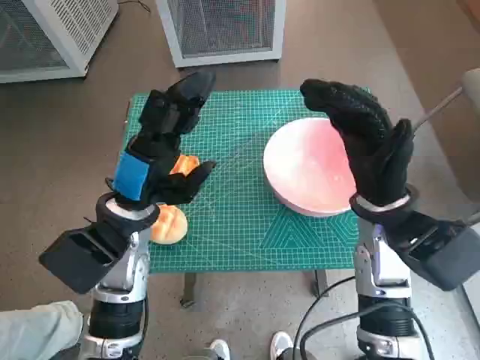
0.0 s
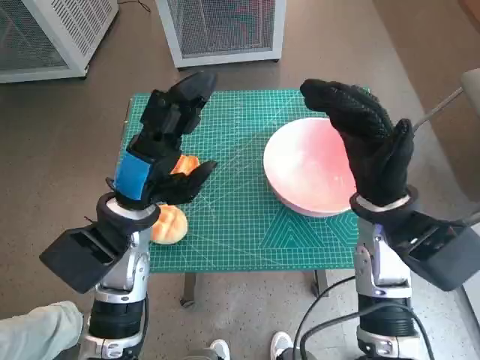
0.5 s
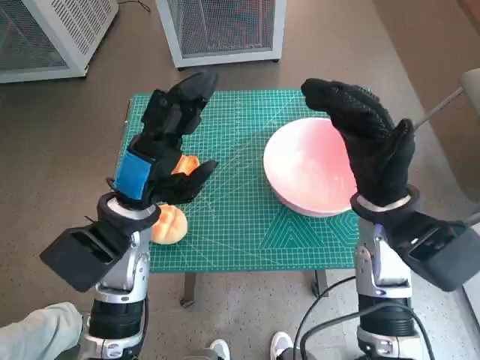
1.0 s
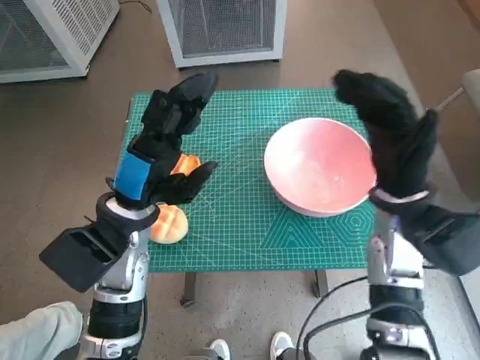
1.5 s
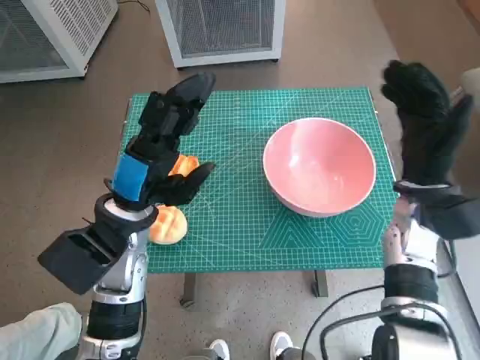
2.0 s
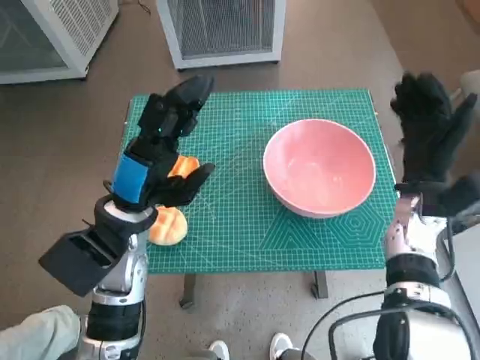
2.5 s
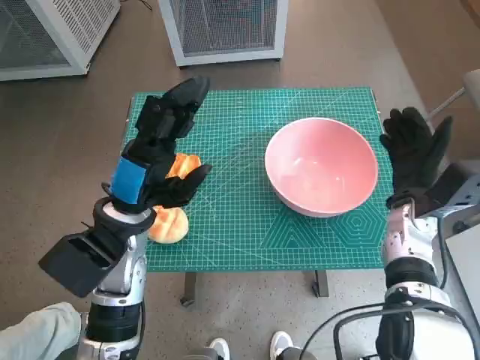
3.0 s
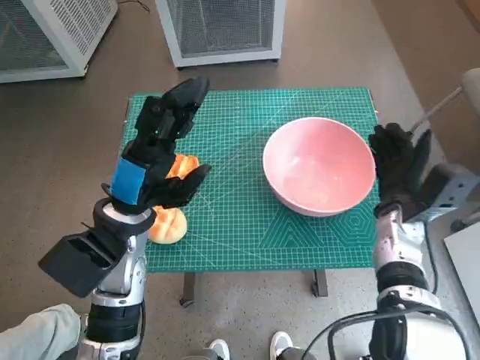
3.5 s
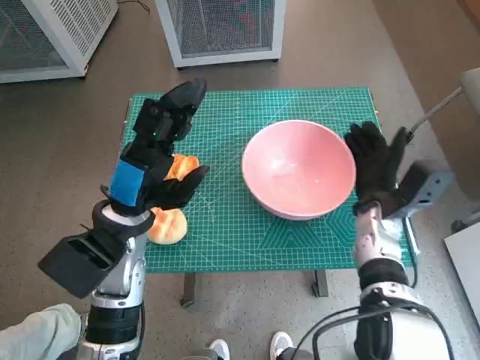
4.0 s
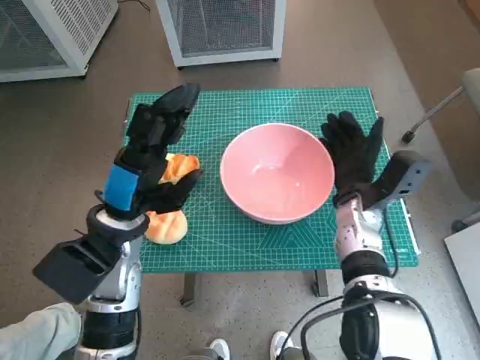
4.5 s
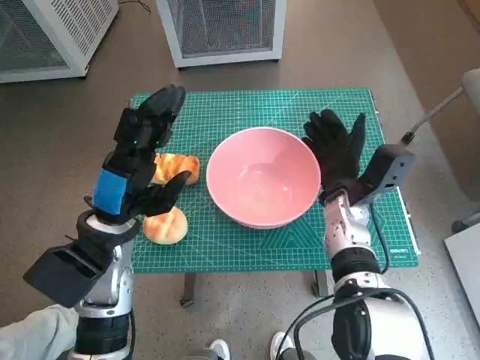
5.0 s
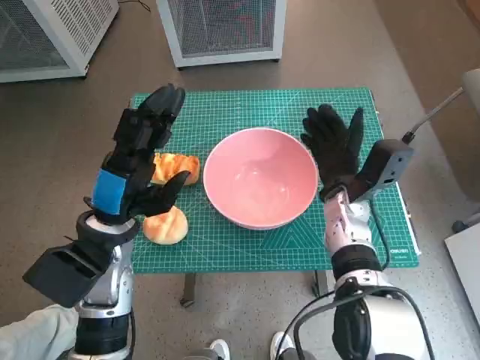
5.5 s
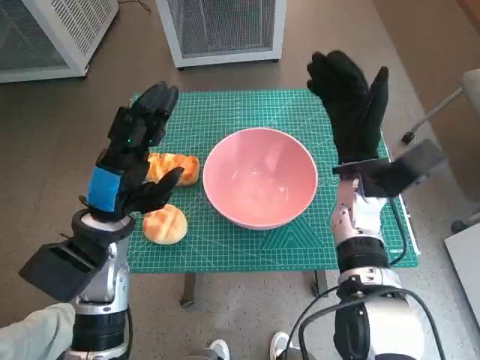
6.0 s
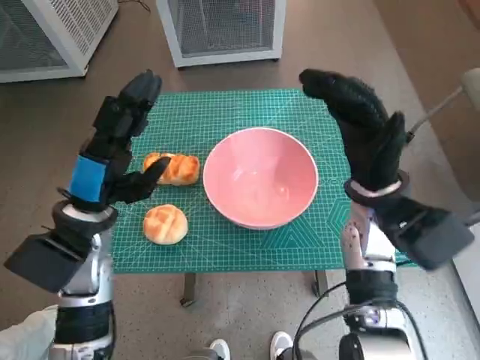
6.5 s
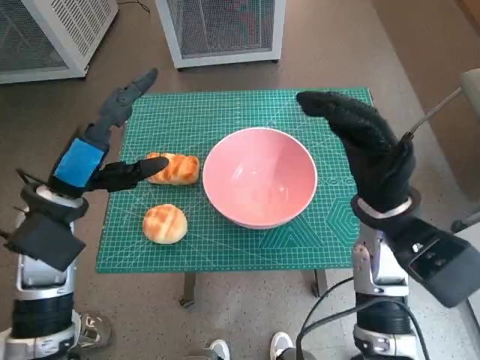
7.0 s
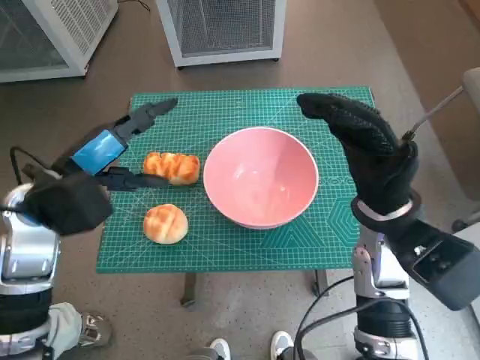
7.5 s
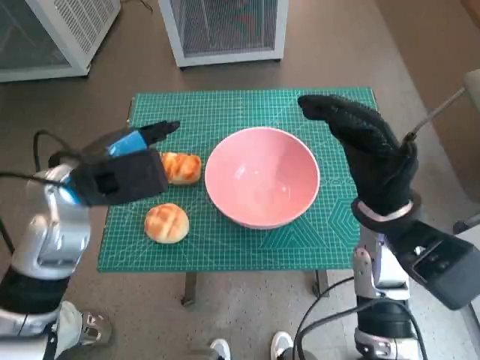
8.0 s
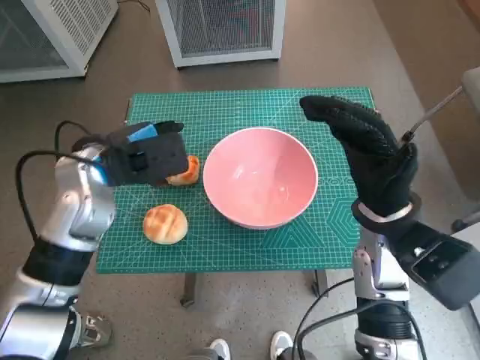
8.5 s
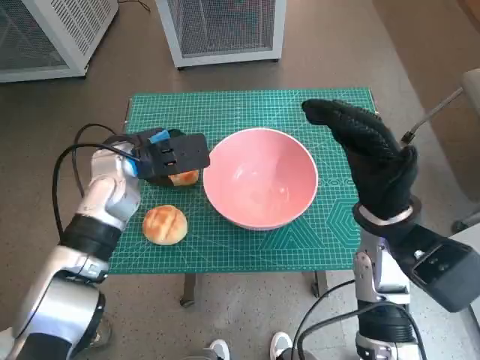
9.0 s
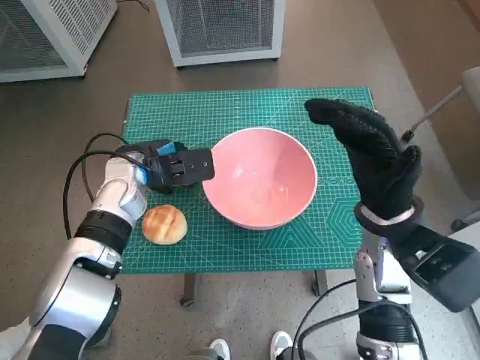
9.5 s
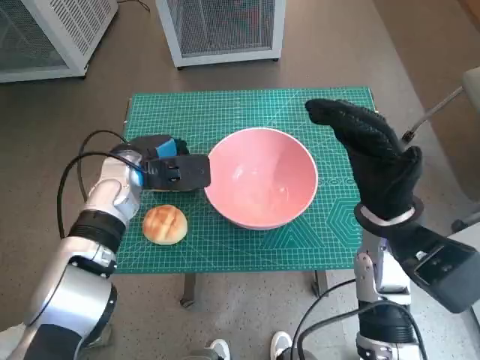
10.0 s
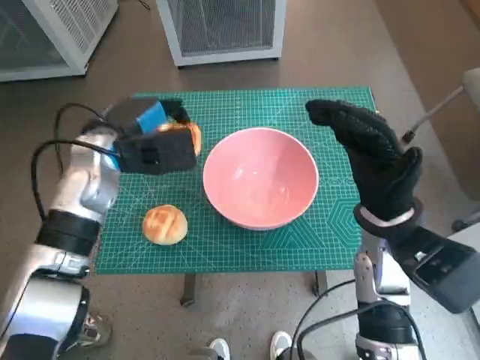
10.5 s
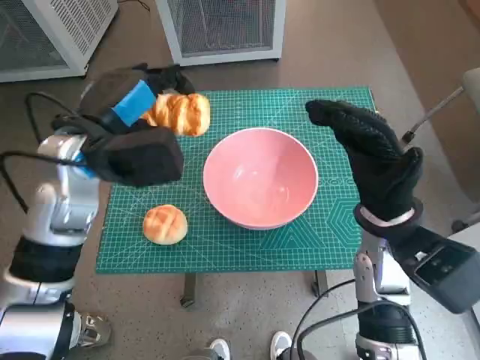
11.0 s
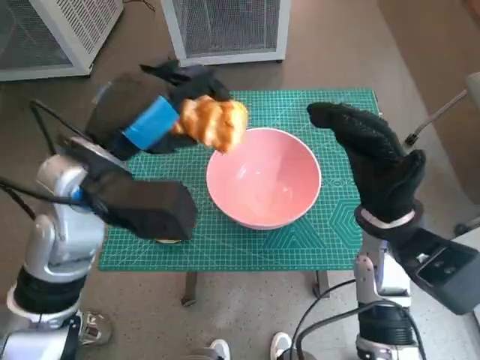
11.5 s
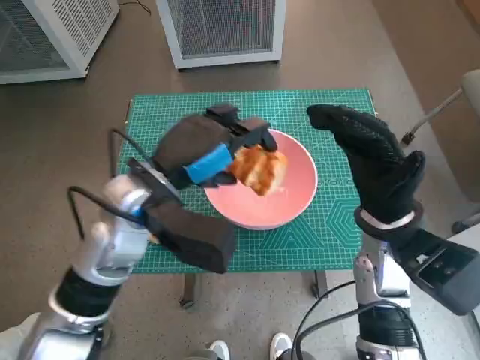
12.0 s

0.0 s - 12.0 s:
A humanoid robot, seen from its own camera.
Task of the whole recording: Push the bowl into the center of the table and put the bread into the bowl.
Step, 0.0 s - 5.5 s: Move the pink bowl to the center of table with right hand.
Step, 6.0 s - 9.5 s: Grasp the long bread with left hand.
2.0 s - 4.0 s: The right hand is displaced downward by some 10 cm.
4.0 s - 6.0 s: The right hand heads upward, covering roughly 5 cm.
6.0 s - 8.0 s: The left hand heads upward, covering about 5 cm. The right hand is displaced backward by some 5 cm.
8.0 s - 10.0 s: The left hand shifts roughly 10 cm downward and forward.
10.0 s - 12.0 s: The left hand travels backward, upward and to the right by approximately 15 cm.

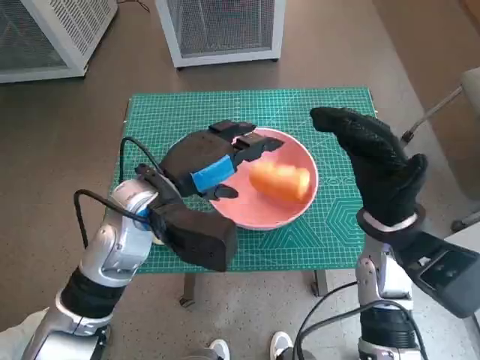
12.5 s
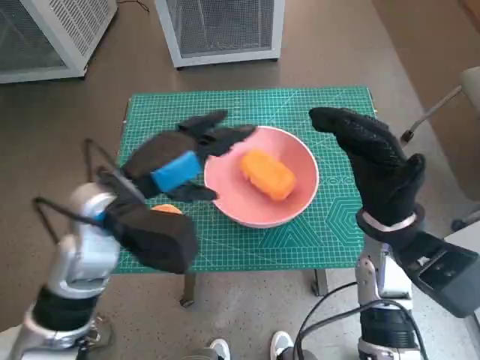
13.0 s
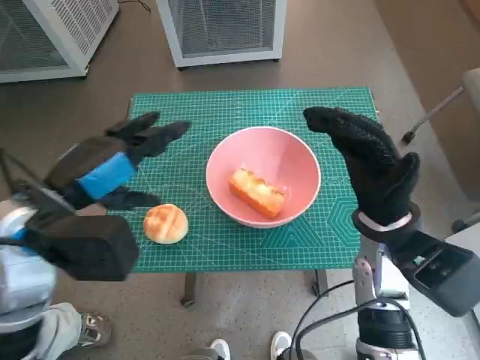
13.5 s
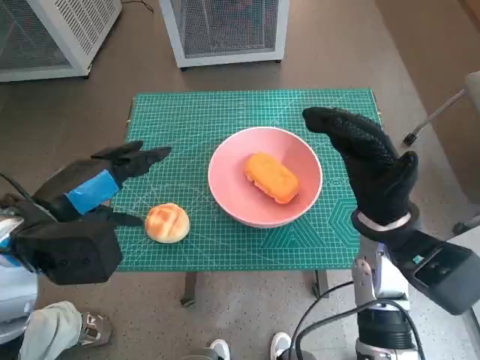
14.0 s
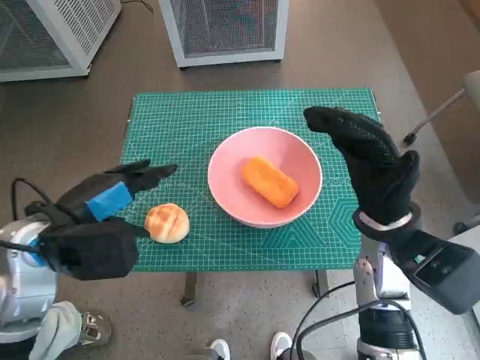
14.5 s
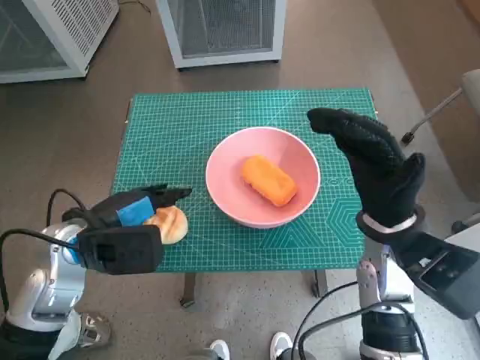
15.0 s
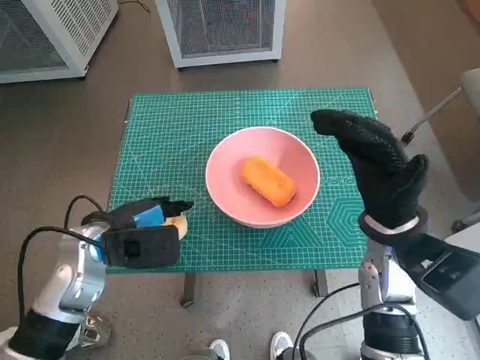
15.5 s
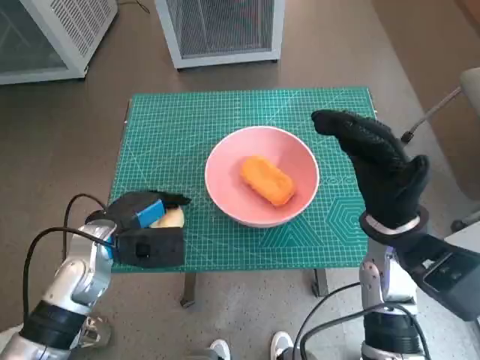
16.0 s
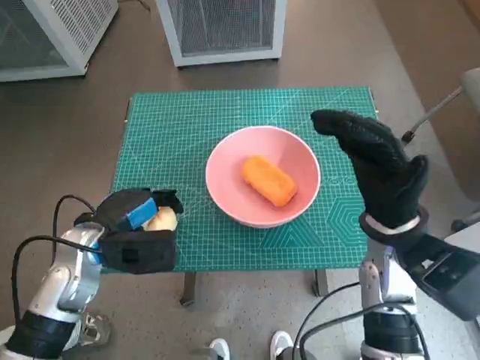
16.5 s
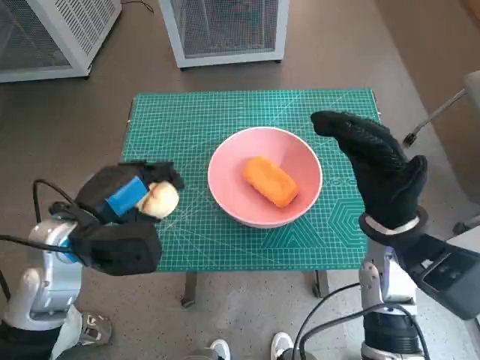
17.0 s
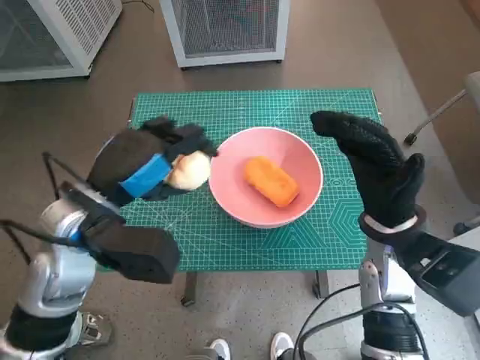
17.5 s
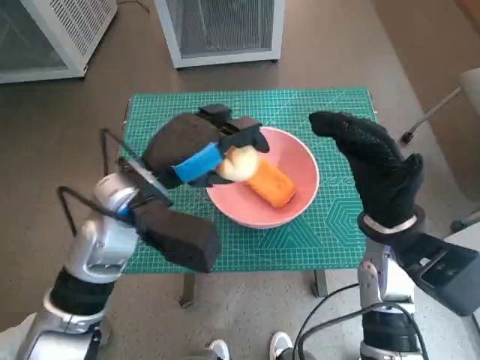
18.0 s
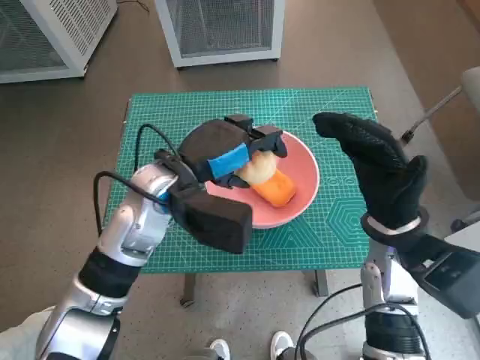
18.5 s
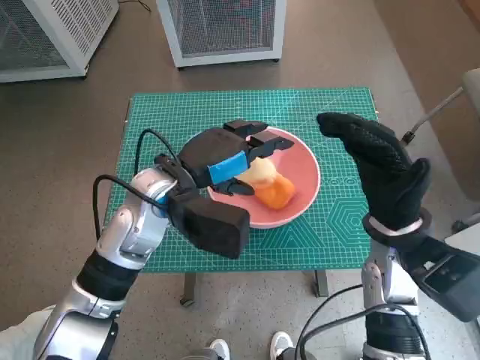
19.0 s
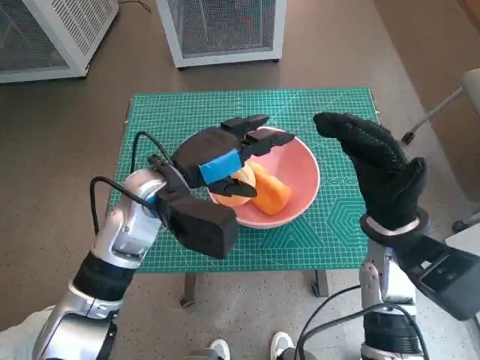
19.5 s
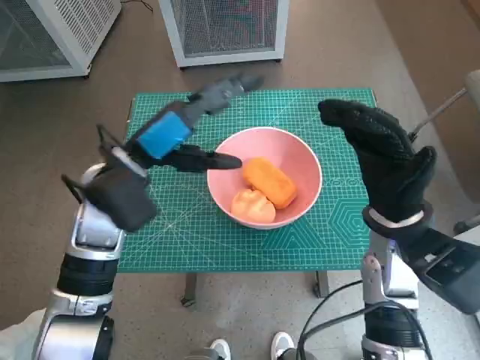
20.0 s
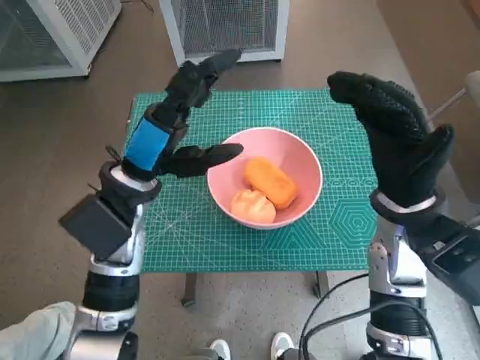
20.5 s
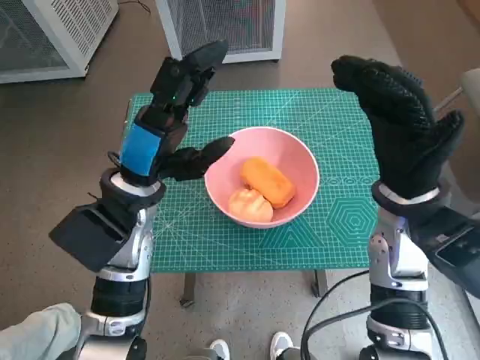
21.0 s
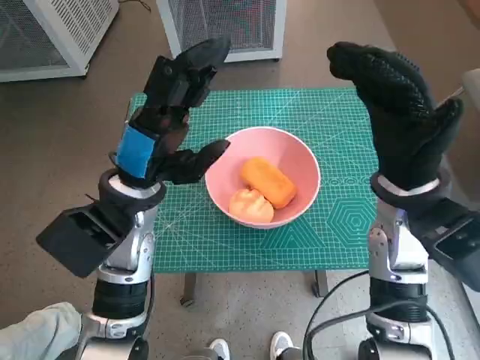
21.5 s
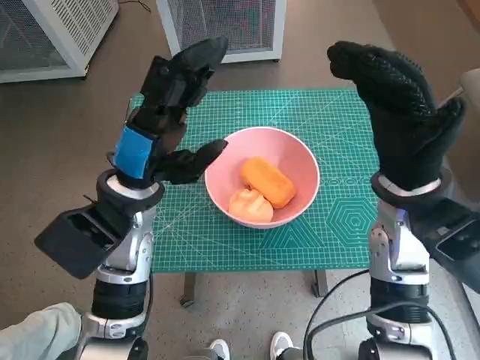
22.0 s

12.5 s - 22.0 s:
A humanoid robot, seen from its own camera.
Task of the whole recording: Push the bowl into the center of the table and put the bread into the bowl.
Step, 12.5 s - 15.5 s: Grasp the round bread with left hand.
Step, 16.0 s - 18.5 s: Place the round bread in pink bowl with left hand.
12.5 s - 14.5 s: The left hand shifts about 10 cm to the left and backward.
14.5 s - 16.5 s: The left hand shifts roughly 10 cm downward.
16.5 s - 18.0 s: The left hand moves upward and to the right, roughly 15 cm.
20.0 s - 22.0 s: The right hand shifts by some 5 cm.

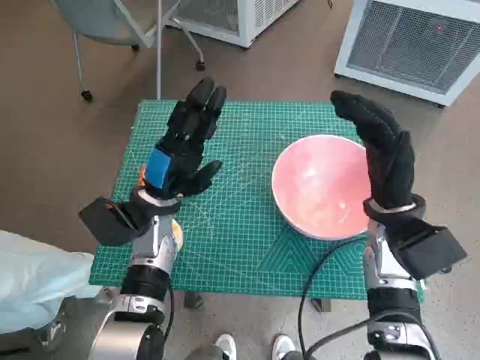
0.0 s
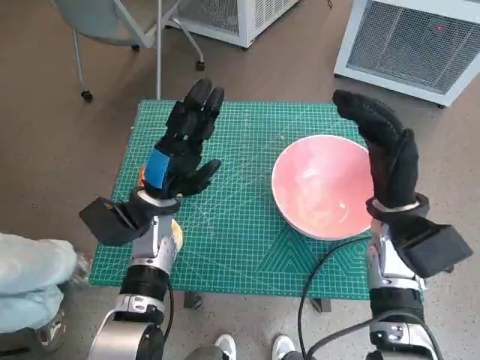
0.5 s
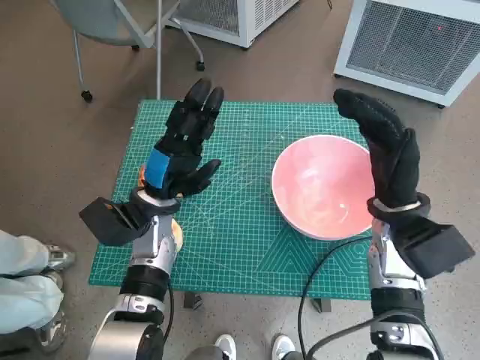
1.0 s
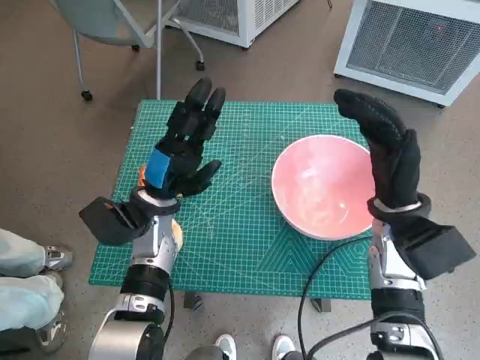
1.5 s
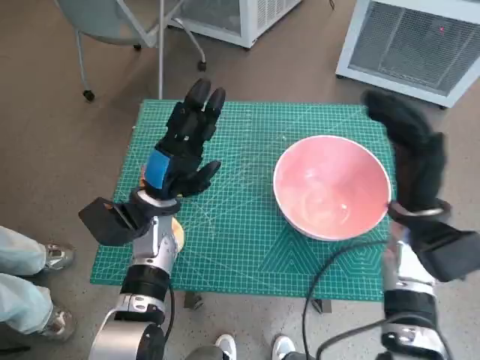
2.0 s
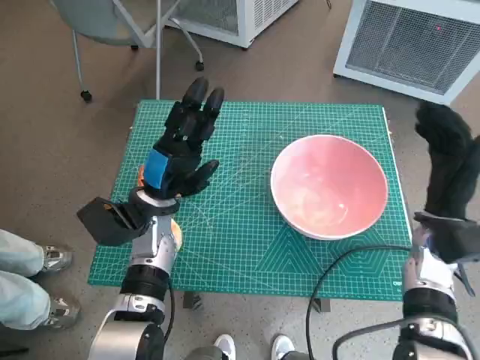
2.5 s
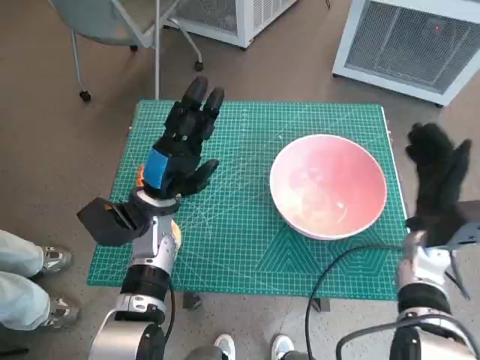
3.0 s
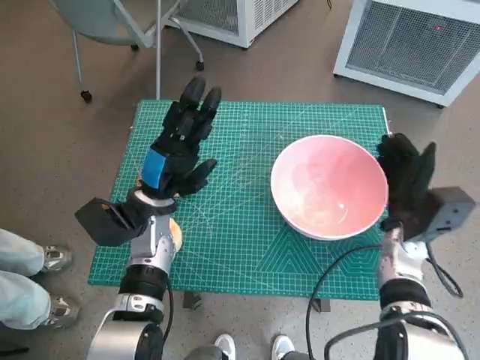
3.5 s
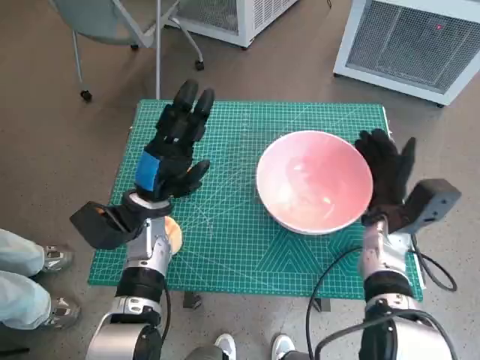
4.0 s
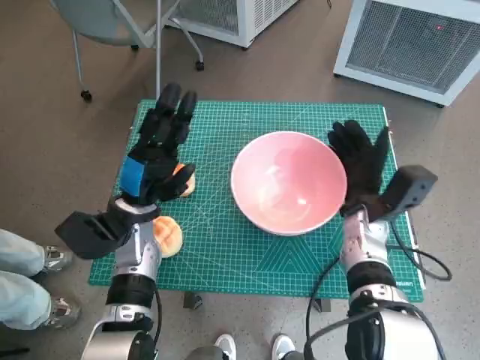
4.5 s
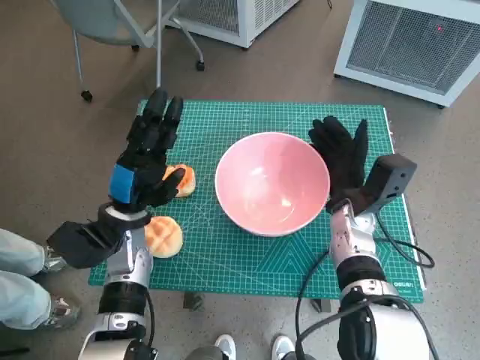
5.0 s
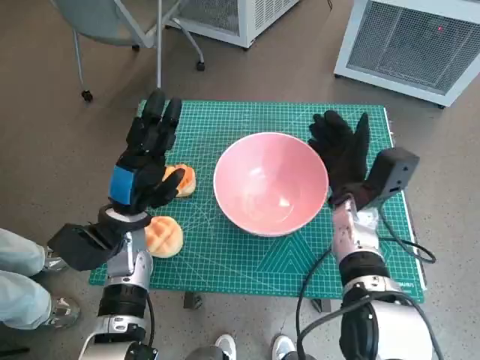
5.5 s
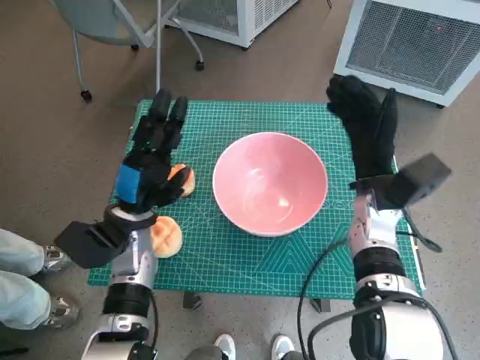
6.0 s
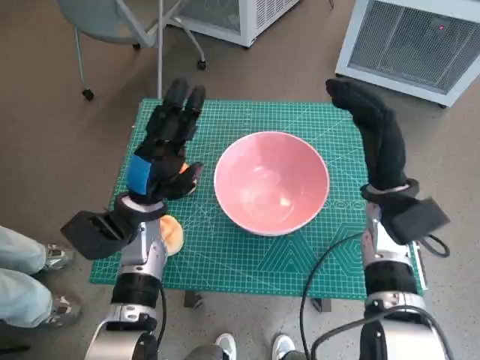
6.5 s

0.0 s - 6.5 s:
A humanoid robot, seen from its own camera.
Task of the whole recording: Push the bowl into the center of the table and put the bread into the bowl.
Step, 0.0 s - 5.5 s: Move the pink bowl to the center of table with right hand.
2.0 s - 4.5 s: The right hand moves downward, about 5 cm.
4.5 s - 6.5 s: The right hand moves upward, some 5 cm.
